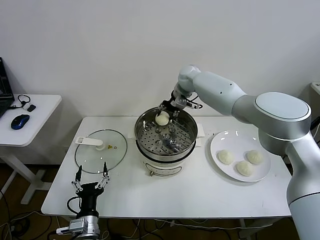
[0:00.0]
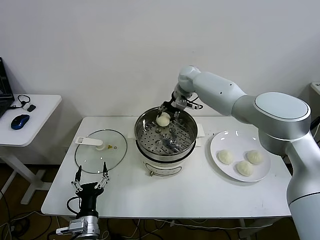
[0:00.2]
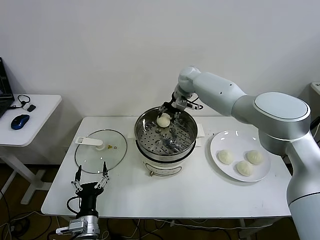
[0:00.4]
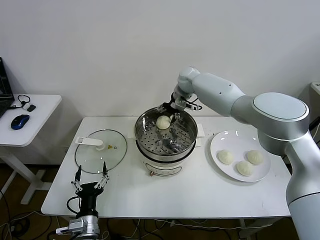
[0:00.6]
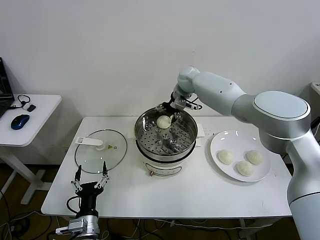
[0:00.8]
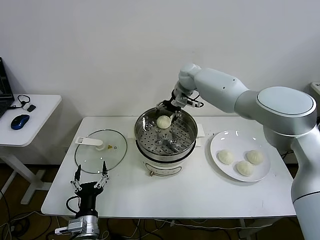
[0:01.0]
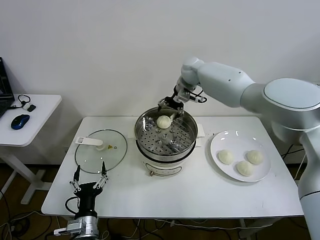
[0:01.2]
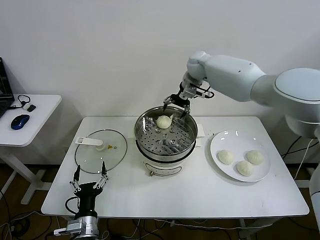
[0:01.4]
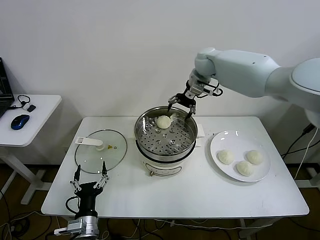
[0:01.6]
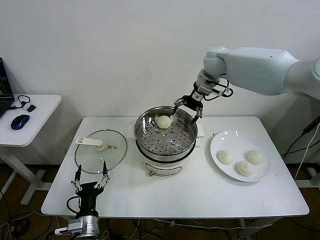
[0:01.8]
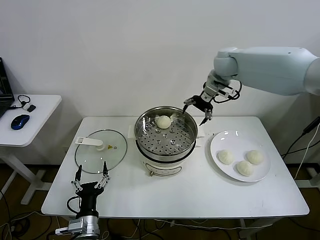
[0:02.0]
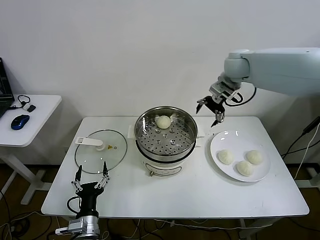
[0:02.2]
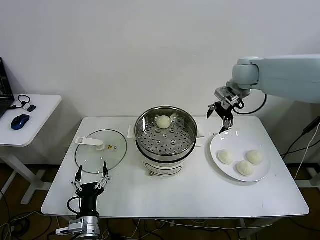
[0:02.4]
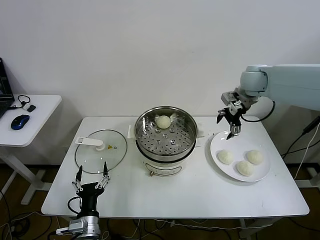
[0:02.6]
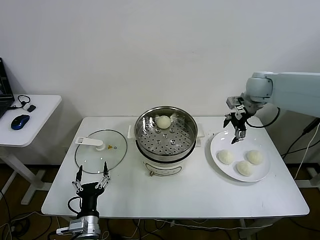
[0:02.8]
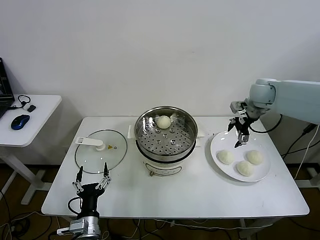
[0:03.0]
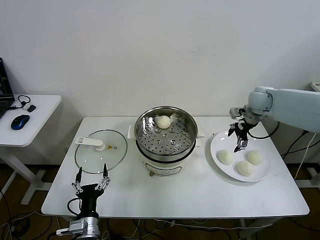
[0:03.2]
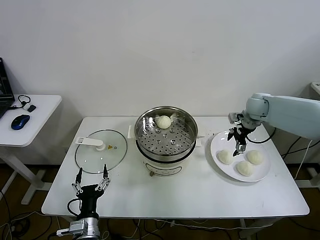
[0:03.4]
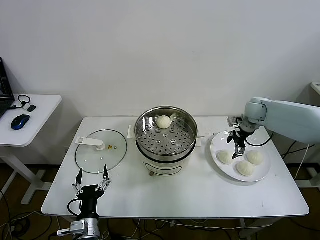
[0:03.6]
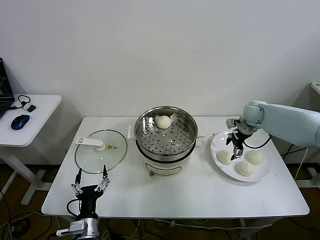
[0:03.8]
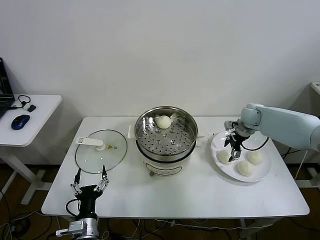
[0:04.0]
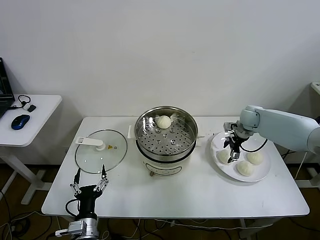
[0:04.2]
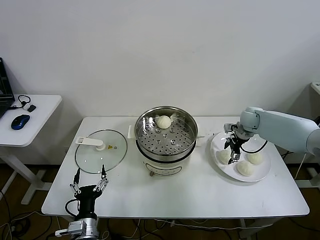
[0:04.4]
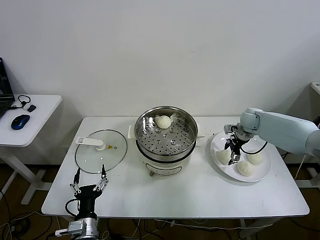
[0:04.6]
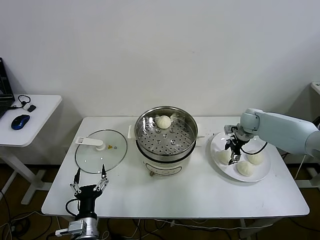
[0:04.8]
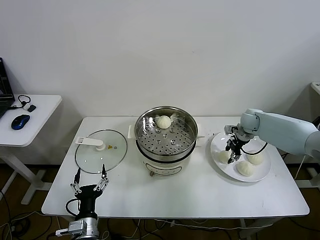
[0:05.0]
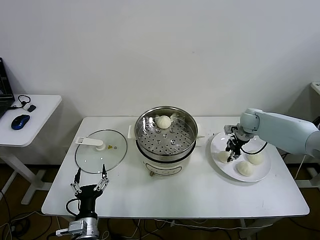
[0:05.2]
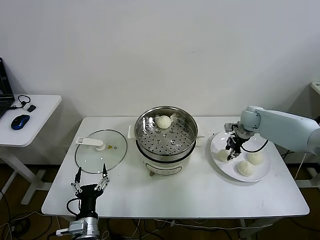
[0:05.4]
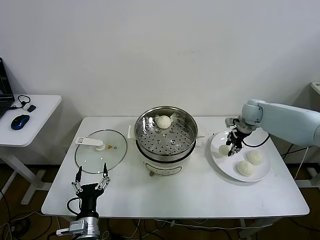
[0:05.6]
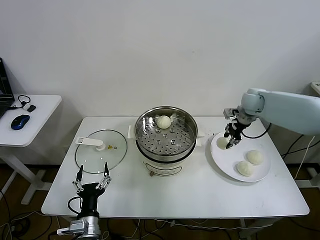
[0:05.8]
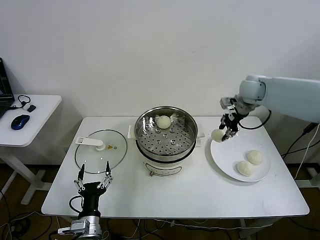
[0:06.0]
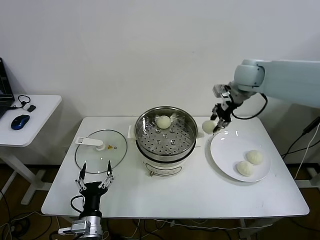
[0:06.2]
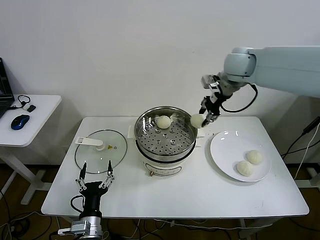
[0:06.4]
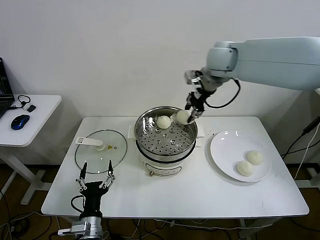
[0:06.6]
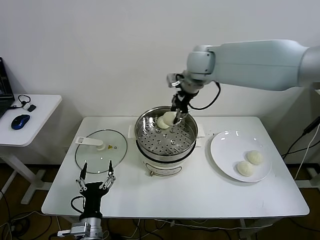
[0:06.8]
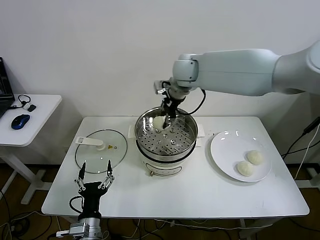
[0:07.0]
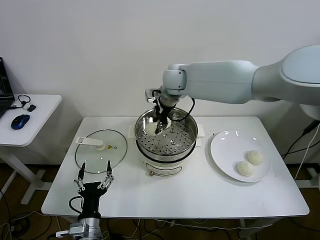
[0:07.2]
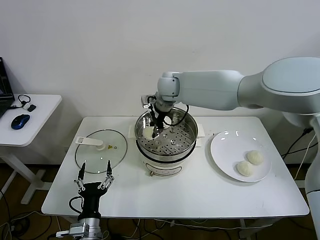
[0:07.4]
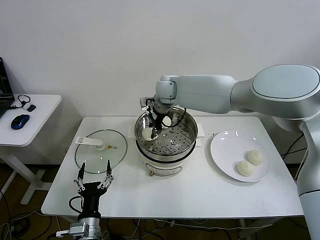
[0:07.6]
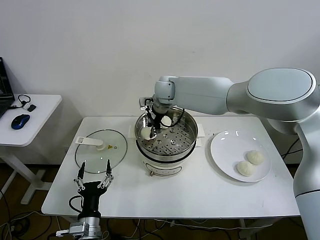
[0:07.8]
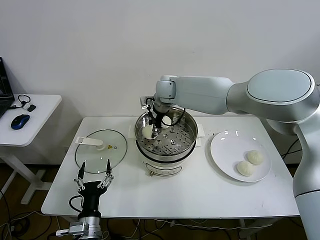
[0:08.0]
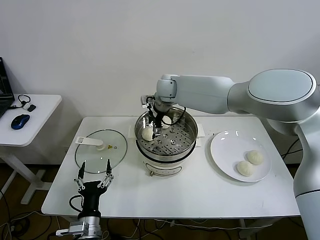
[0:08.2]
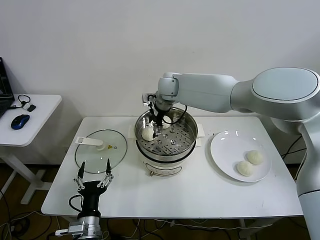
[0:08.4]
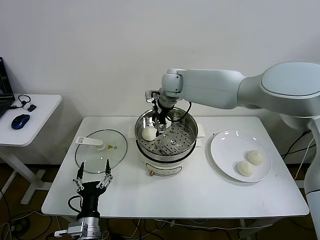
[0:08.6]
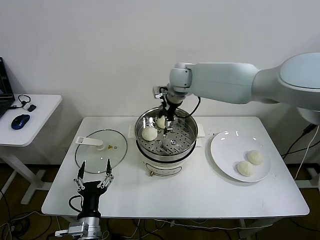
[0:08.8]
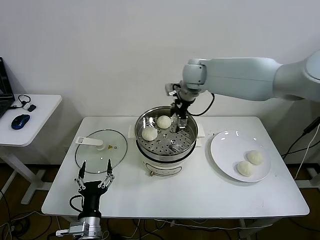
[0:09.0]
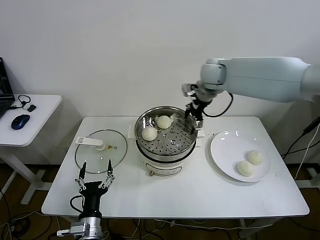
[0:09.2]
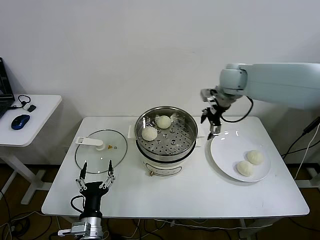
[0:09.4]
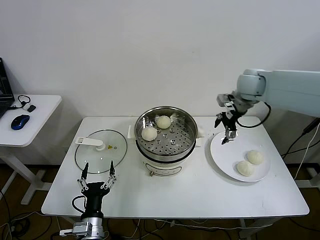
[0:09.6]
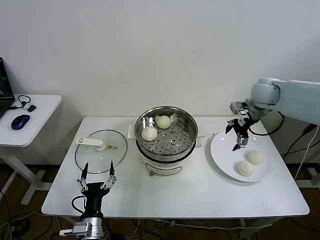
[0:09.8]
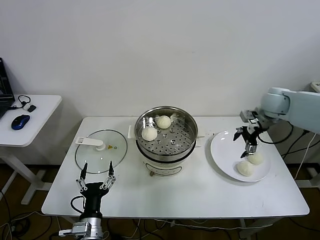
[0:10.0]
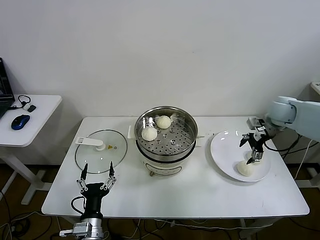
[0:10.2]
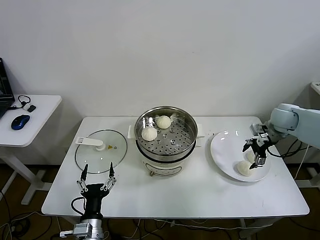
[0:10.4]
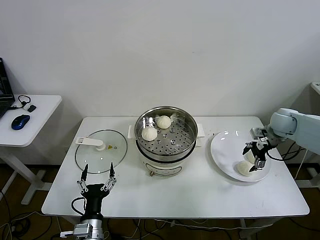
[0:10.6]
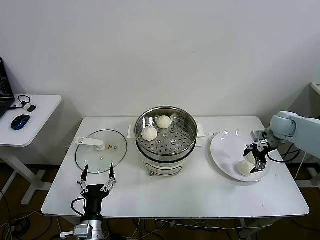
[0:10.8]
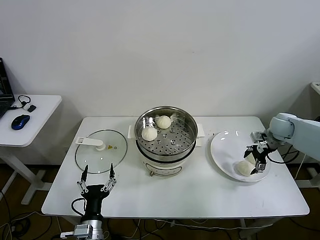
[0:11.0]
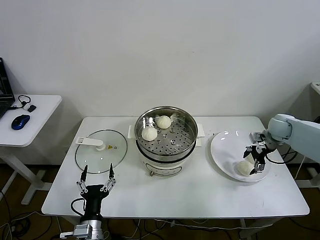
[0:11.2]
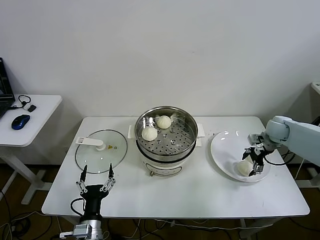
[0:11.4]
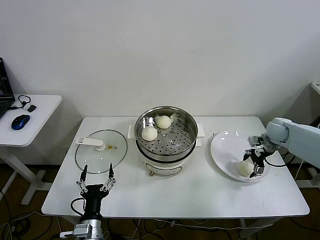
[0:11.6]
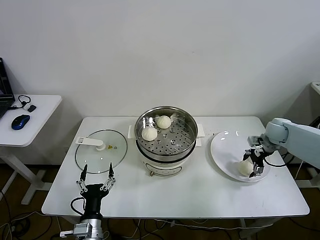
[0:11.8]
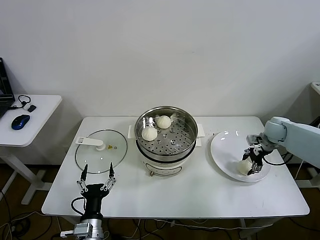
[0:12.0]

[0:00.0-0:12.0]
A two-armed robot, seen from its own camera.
Step, 1.0 to 5.2 s: Grasp the baozi in the plate with right gripper.
Step, 5.4 to 8.6 s: Place the baozi on the steamer with right gripper.
0.0 to 1.6 s: The right gripper is displaced upward and to the right by about 10 cm, and opens its fingers.
1.6 to 3.0 s: The right gripper travels to the right and backward by approximately 20 cm.
3.0 to 4.4 s: The right gripper heads downward, covering some 15 cm.
4.4 to 6.0 s: The right gripper travels upward by approximately 15 cm, and closes.
6.0 to 7.6 s: The right gripper heads to the left, covering approximately 30 cm.
7.6 to 9.0 s: The right gripper travels to the right and upward by roughly 10 cm, and opens its fingers.
9.0 to 10.4 s: The right gripper goes approximately 35 cm to the right and downward.
10.4 to 12.0 s: The right gripper travels downward by roughly 10 cm.

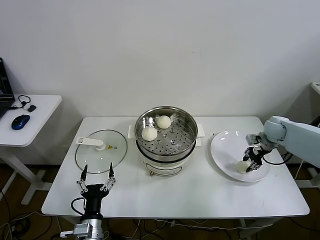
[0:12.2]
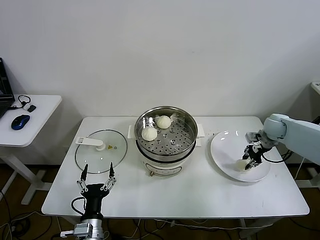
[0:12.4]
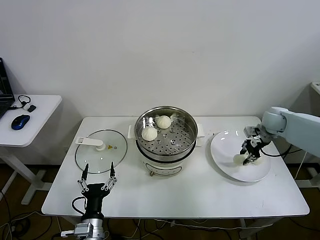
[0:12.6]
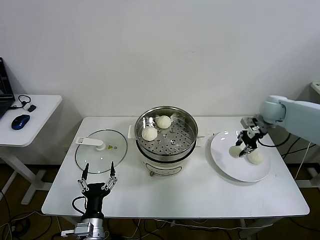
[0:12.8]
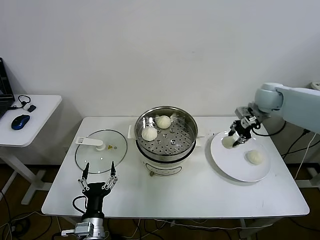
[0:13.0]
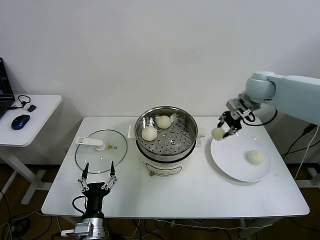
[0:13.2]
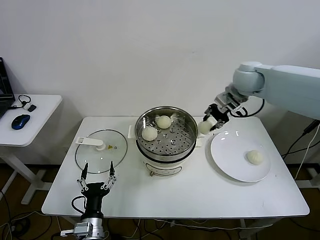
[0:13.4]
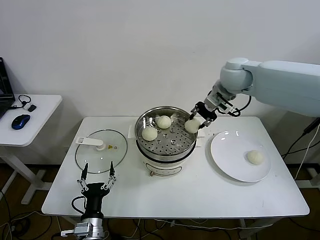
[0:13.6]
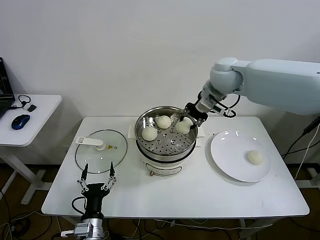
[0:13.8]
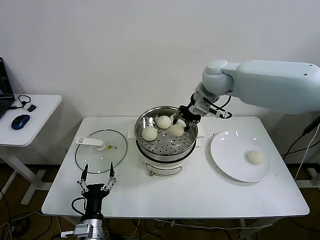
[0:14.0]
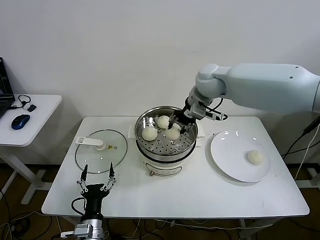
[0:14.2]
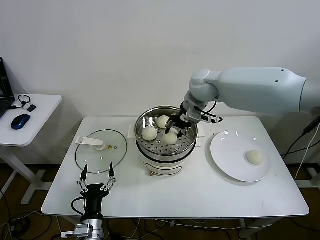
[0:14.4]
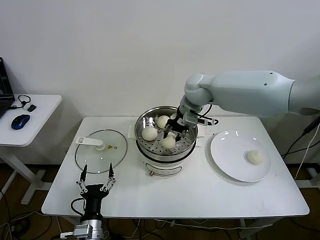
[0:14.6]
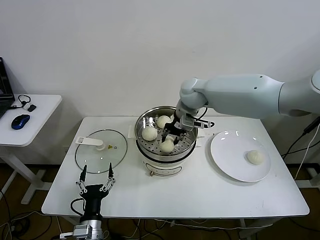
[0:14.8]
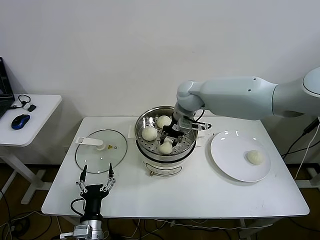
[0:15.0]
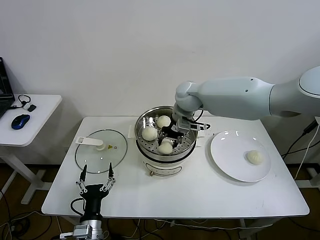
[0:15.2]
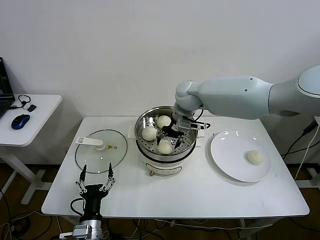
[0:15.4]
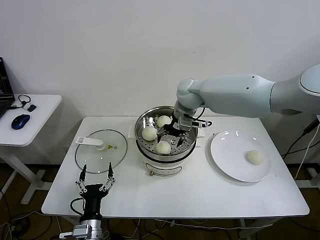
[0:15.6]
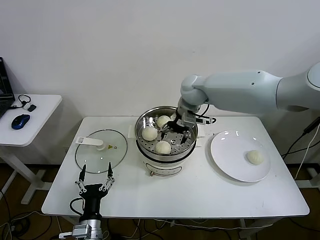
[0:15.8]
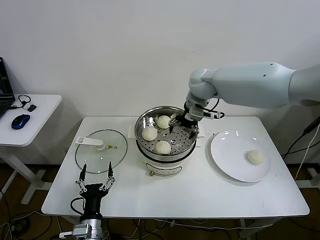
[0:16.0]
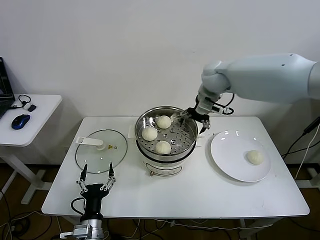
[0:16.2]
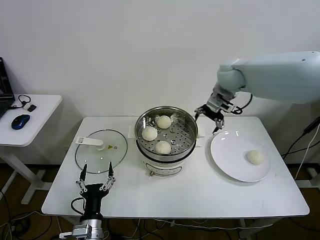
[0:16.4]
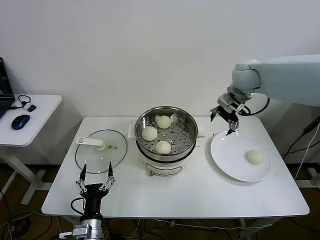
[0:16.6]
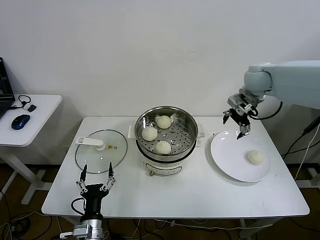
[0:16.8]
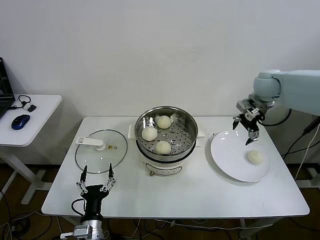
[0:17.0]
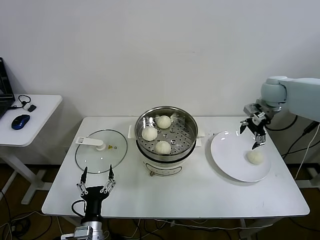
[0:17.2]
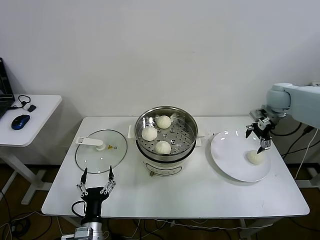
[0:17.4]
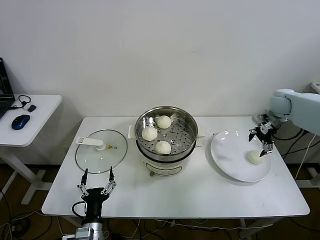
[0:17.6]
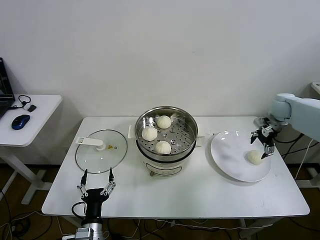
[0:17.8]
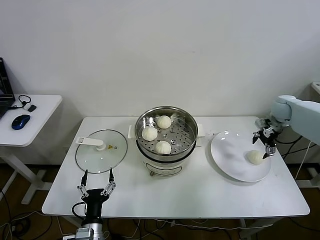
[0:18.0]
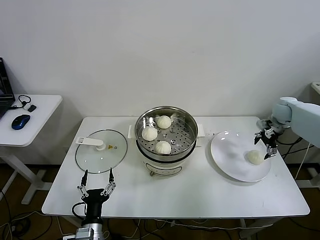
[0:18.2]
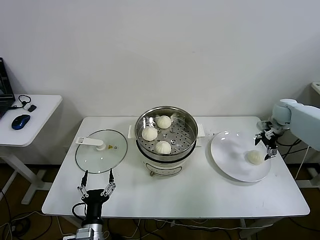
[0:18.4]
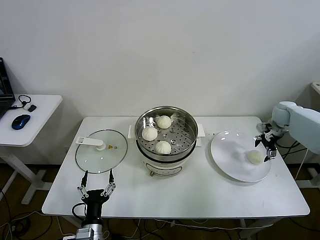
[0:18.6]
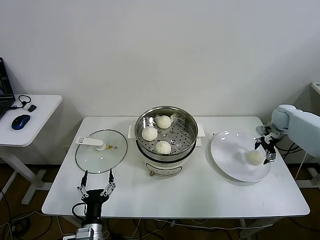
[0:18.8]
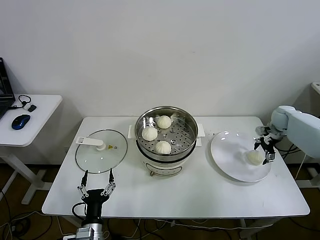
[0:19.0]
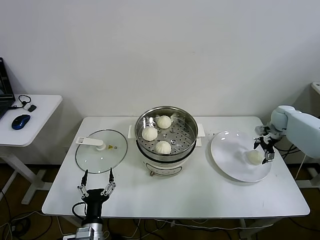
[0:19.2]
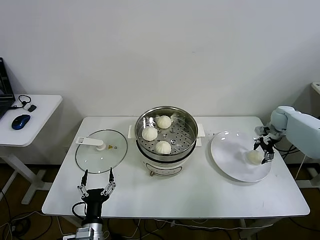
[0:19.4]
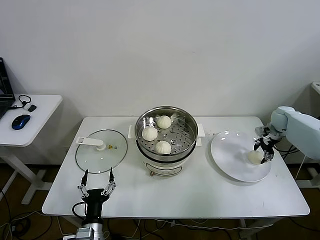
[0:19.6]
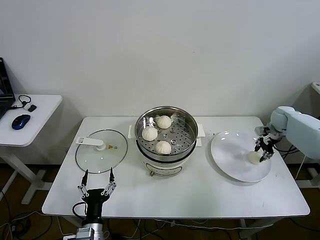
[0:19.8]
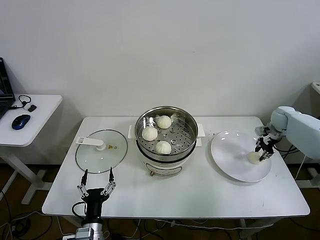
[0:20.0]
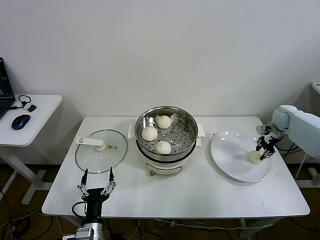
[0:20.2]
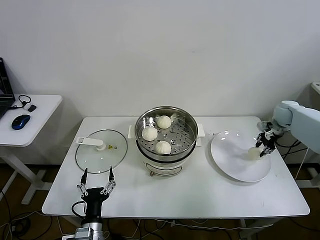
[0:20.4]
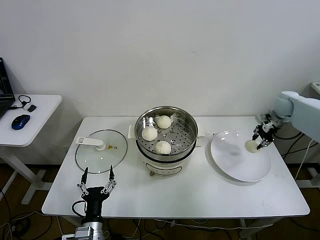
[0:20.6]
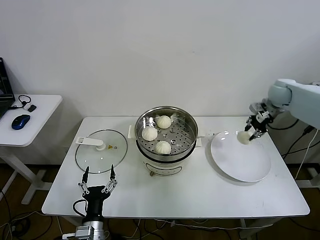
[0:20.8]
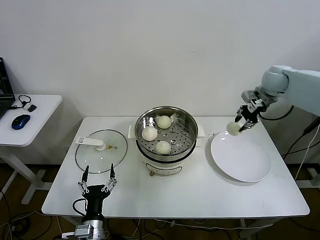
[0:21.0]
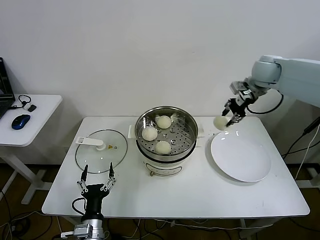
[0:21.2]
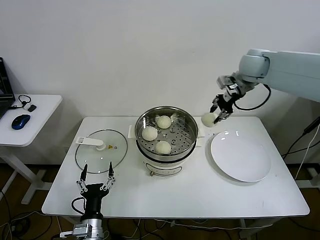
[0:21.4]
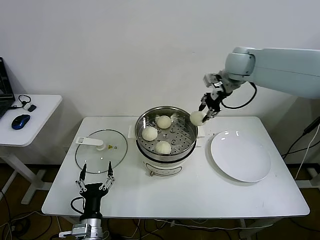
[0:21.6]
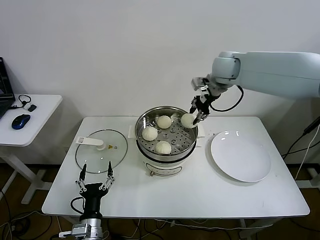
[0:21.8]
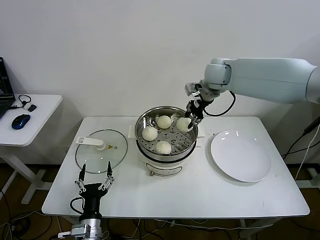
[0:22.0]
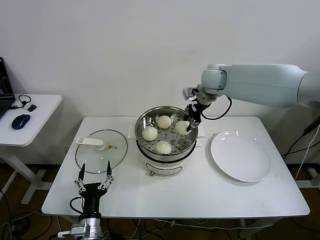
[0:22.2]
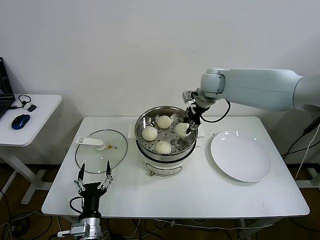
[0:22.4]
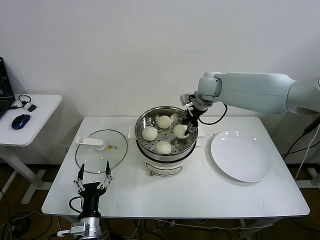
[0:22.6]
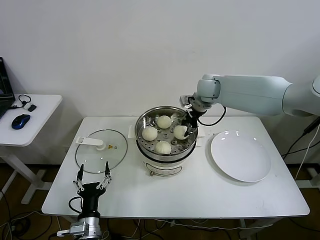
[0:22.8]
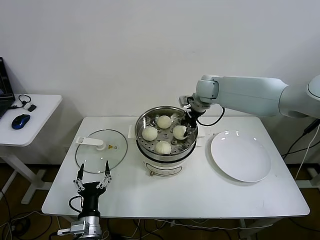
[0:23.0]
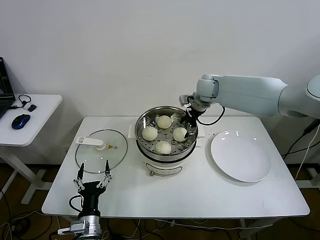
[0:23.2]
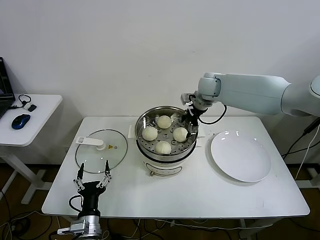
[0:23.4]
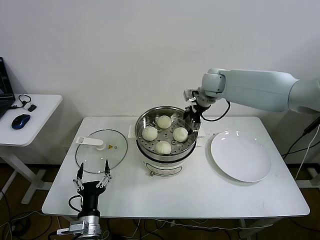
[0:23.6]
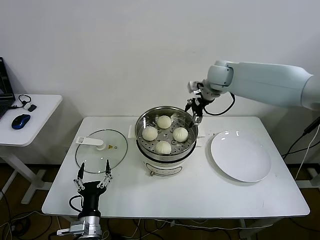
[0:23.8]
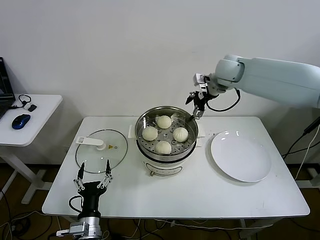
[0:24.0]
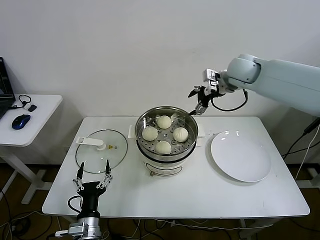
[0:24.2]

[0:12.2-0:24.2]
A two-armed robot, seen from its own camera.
Step, 12.4 to 15.4 s: Place the baozi on the steamer with right gripper.
Step, 15.8 to 19.8 s: Grasp the baozi in the plate with right gripper.
Step, 20.0 to 23.4 s: Place the baozi on the steamer with right gripper.
12.2 to 13.8 s: The right gripper moves to the left and upward, roughly 35 cm.
13.8 to 15.2 s: The right gripper heads to the left and downward, covering roughly 15 cm.
15.2 to 16.6 s: The right gripper heads to the right and upward, covering some 20 cm, and opens up.
16.6 to 18.2 s: The right gripper goes roughly 25 cm to the right and downward.
18.2 to 19.8 s: The right gripper is displaced downward by some 5 cm, and closes its fingers.
19.8 to 21.2 s: The right gripper shifts some 25 cm upward and to the left, and closes up.
21.2 to 22.6 s: The right gripper goes approximately 15 cm to the left.
22.6 to 24.2 s: The right gripper goes some 10 cm to the right and upward, and opens.
